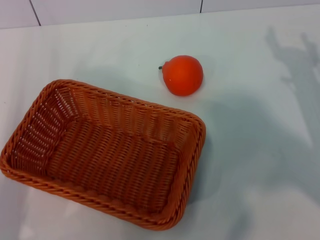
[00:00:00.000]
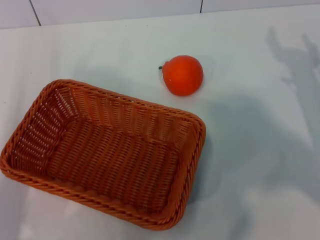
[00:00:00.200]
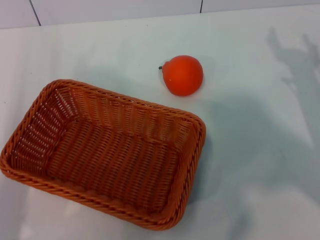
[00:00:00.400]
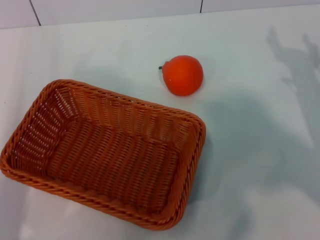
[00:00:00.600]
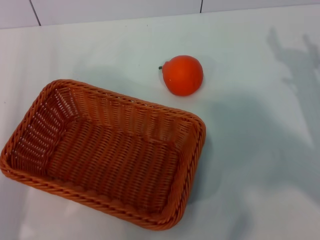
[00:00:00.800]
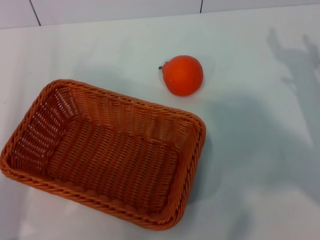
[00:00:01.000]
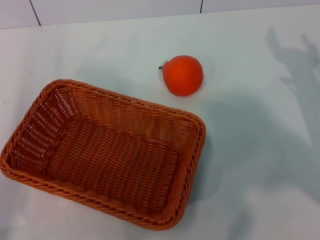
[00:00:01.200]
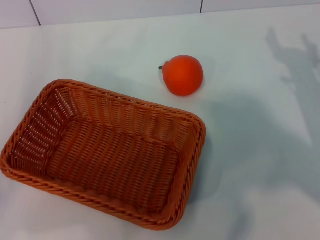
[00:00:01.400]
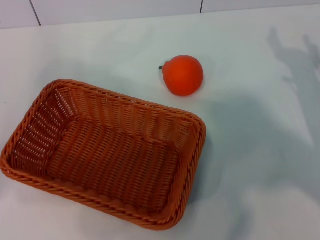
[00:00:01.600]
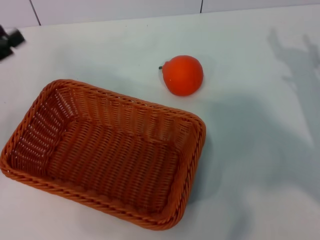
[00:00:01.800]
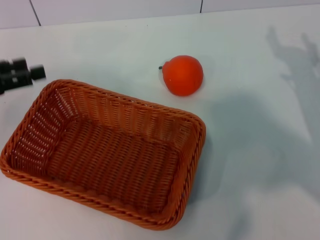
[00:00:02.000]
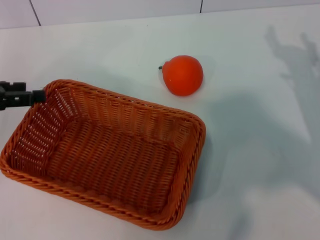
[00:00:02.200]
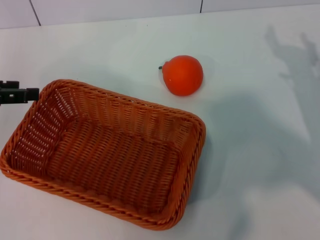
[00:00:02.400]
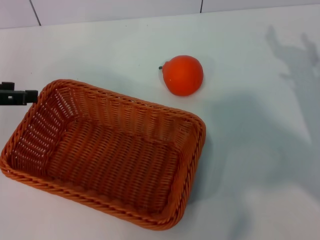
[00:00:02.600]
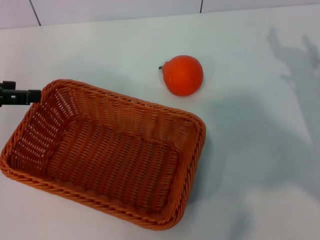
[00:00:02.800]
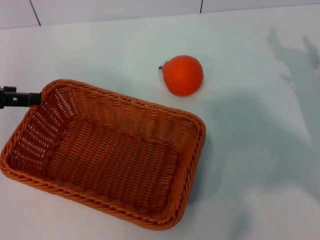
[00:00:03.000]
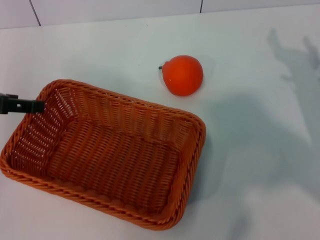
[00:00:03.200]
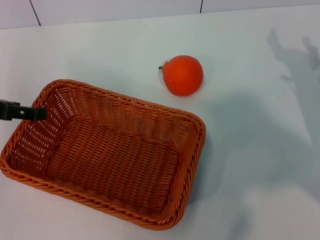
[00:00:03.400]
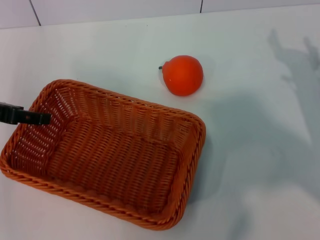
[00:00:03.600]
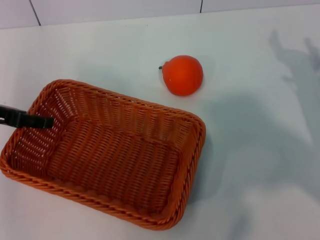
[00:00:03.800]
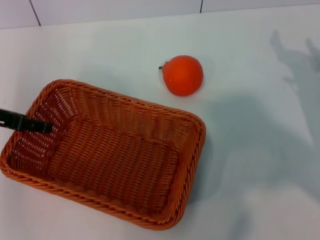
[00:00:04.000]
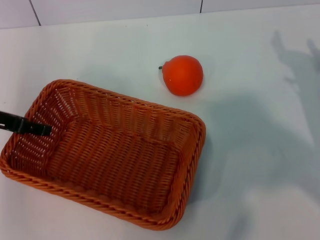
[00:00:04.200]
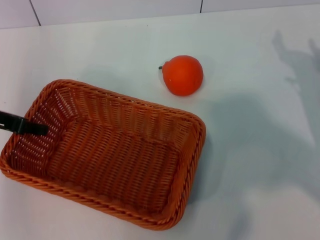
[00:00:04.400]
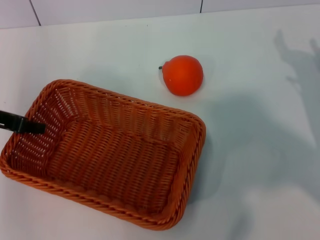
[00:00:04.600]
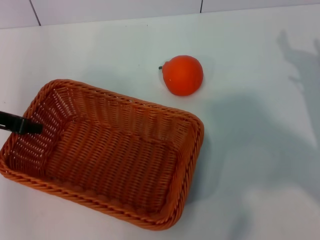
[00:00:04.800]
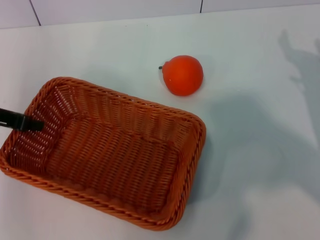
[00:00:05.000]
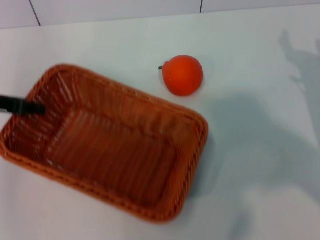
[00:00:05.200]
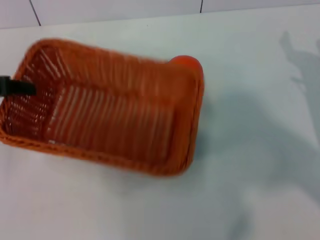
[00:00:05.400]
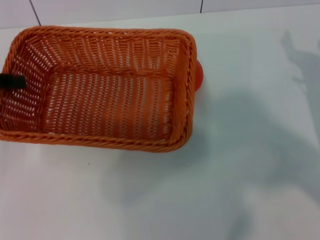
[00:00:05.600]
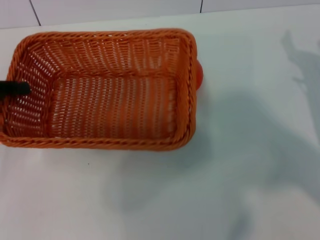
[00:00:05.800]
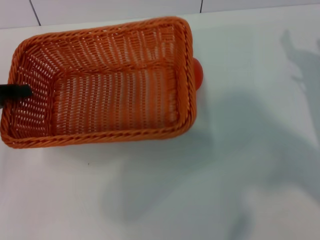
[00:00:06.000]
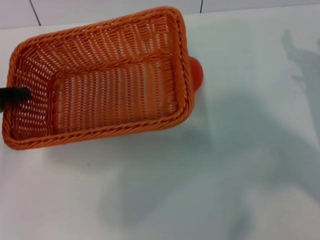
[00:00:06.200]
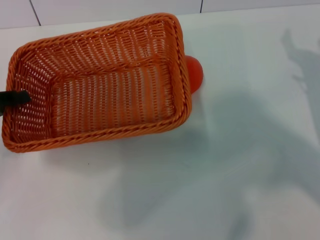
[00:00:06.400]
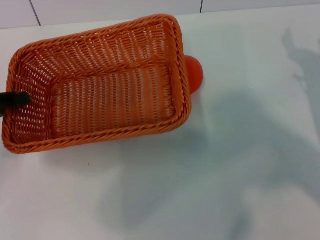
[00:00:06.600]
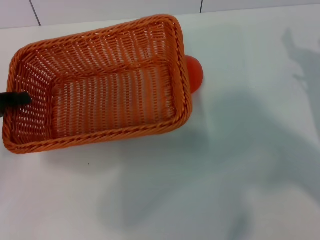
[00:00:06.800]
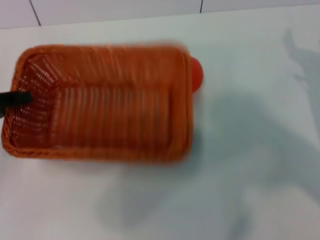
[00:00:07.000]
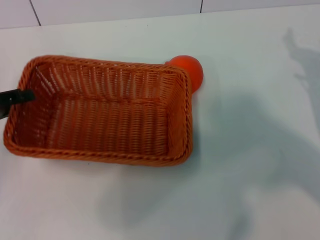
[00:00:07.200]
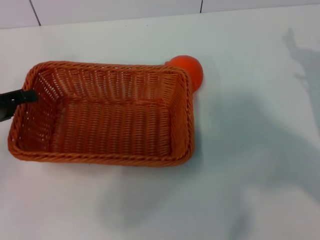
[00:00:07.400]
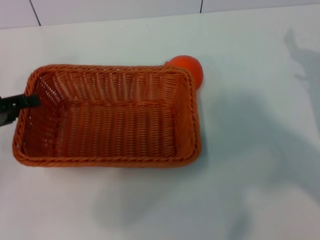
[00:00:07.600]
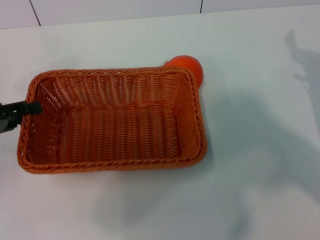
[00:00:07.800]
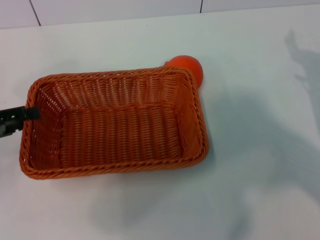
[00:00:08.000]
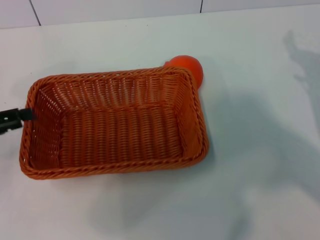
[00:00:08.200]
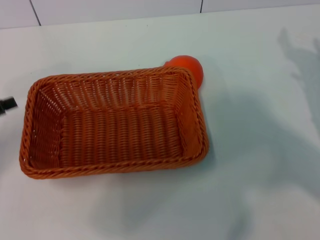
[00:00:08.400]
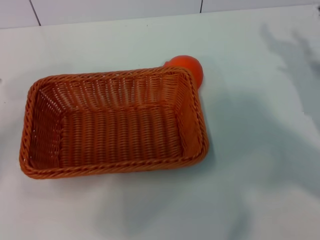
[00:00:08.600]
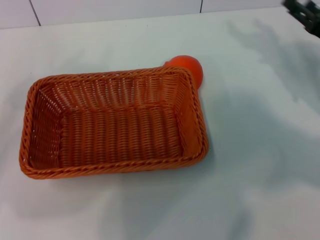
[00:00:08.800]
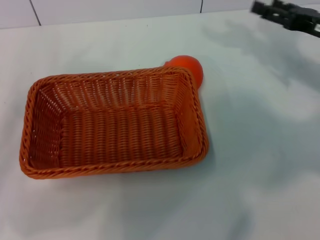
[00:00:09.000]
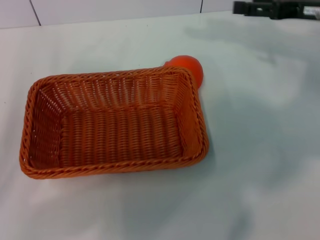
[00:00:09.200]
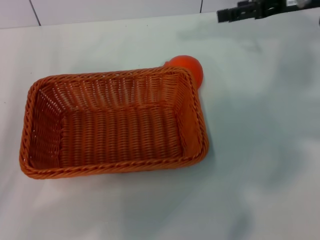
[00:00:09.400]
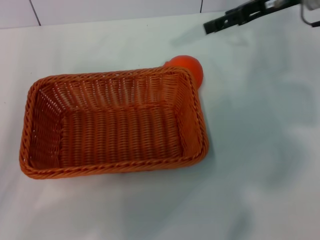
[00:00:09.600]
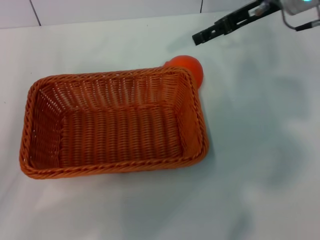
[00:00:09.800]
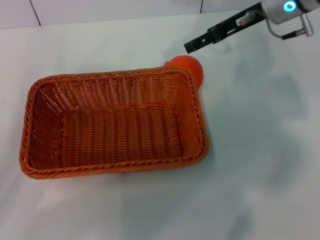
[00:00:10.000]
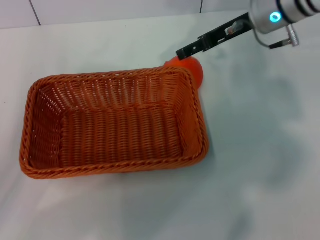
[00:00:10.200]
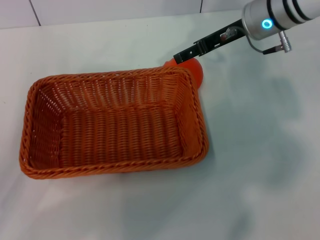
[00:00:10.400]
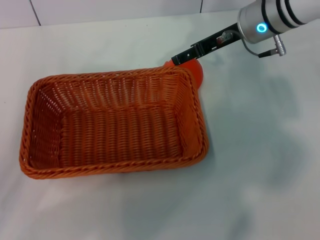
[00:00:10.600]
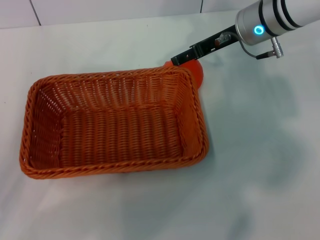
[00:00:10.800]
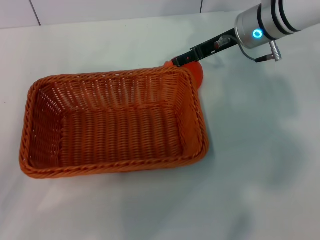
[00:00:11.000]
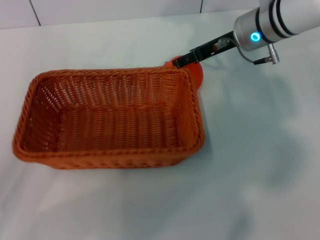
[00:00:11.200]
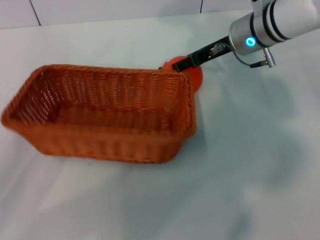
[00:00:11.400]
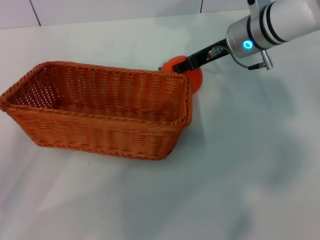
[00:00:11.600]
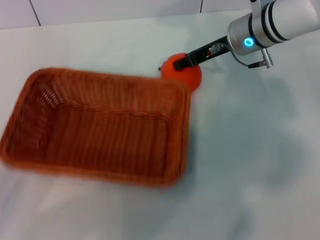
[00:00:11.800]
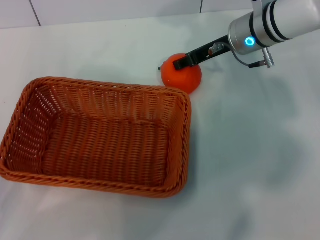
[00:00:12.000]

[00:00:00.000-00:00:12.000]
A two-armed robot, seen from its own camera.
Task of the whole recording: the left gripper pick up the yellow basket and place it horizontally in the middle of the table, the right gripper pick up the orange and place it into the yellow basket.
Step, 00:00:00.000 to 00:00:05.200: Pick up the light basket with the left gripper.
Step, 00:00:05.400 to 00:00:08.200: Place the light basket in the center of view with the left gripper.
00:00:00.000 to 00:00:01.600: The left gripper is displaced forward, to the left and upward by about 10 cm.
00:00:01.600 to 00:00:03.000: The left gripper is displaced upward by some 10 cm, and opens its fingers.
00:00:03.000 to 00:00:04.400: The grippers stay close to where they were, moving slightly.
00:00:04.400 to 00:00:06.000: The left gripper changes place by approximately 5 cm, and closes.
00:00:06.000 to 00:00:07.600: The left gripper opens up.
00:00:07.600 to 00:00:09.000: The right gripper travels upward and forward by some 10 cm. Meanwhile the left gripper shifts by some 5 cm.
00:00:09.000 to 00:00:10.400: The right gripper heads to the left and forward, covering roughly 15 cm.
00:00:10.400 to 00:00:12.000: The right gripper closes up.

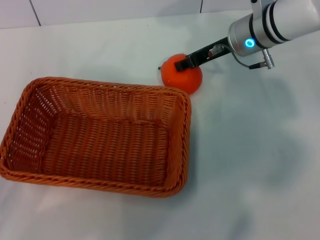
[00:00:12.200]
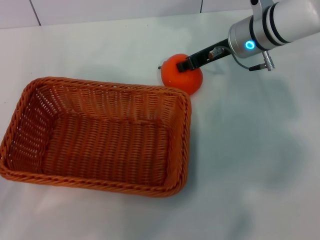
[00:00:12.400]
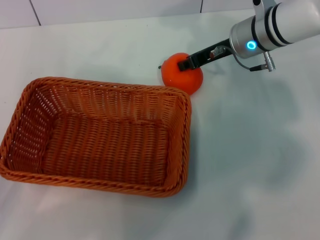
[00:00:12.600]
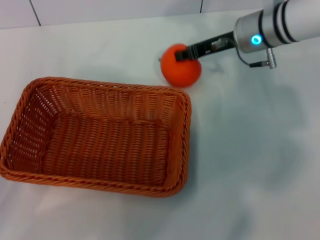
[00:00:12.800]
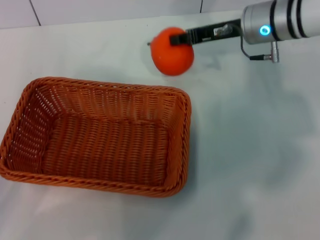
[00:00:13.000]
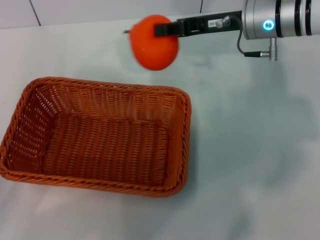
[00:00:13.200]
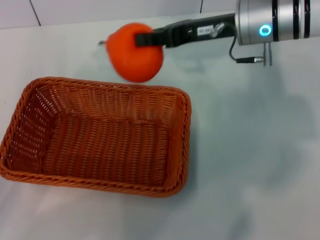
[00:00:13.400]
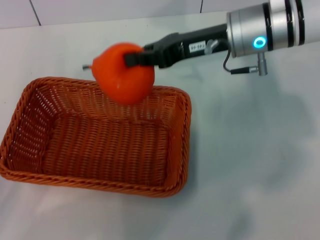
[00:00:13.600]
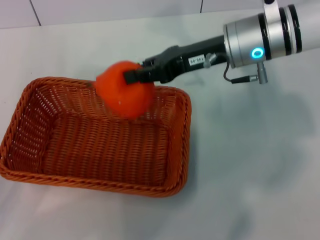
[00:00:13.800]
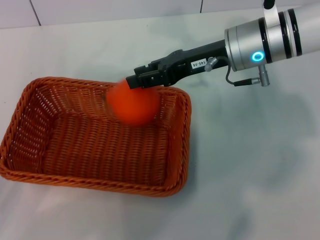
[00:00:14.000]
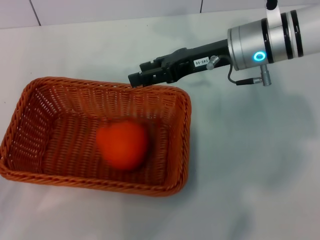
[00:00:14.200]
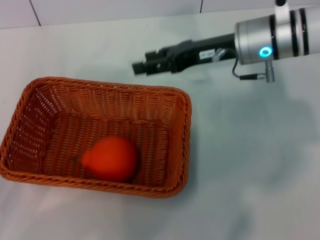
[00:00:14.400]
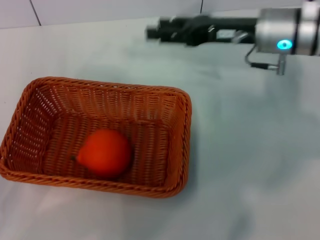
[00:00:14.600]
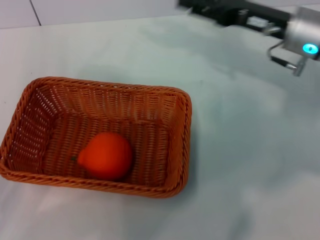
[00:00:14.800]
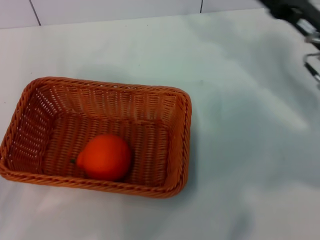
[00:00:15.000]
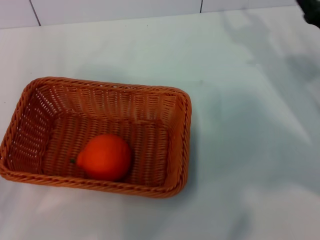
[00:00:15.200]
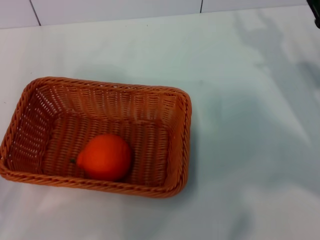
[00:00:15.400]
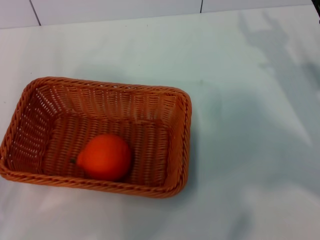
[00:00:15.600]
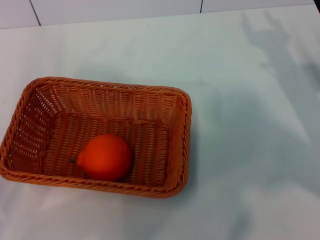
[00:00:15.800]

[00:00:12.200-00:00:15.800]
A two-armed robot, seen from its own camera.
Task of the whole recording: the left gripper pick up the yellow basket and place it horizontally in the middle of the table, the right gripper pick up the orange and place it into the yellow basket.
Step, 00:00:13.000 to 00:00:14.000: Place the orange into the light basket with the right gripper.
00:00:12.200 to 00:00:14.000: The right gripper shifts some 5 cm backward.
00:00:14.000 to 00:00:15.800: The right gripper heads to the right, downward and backward, covering about 20 cm, and opens up.
